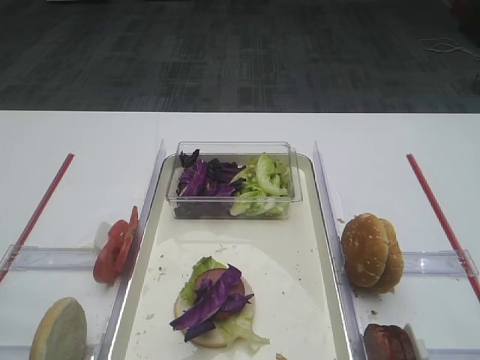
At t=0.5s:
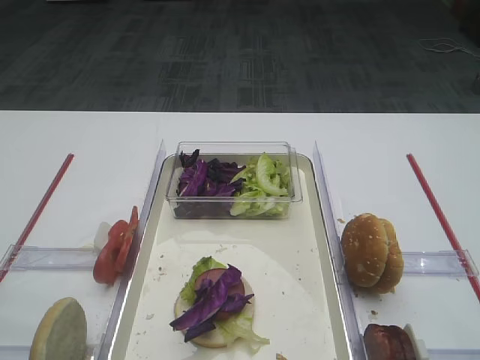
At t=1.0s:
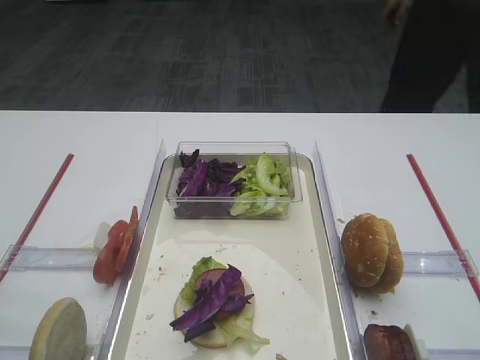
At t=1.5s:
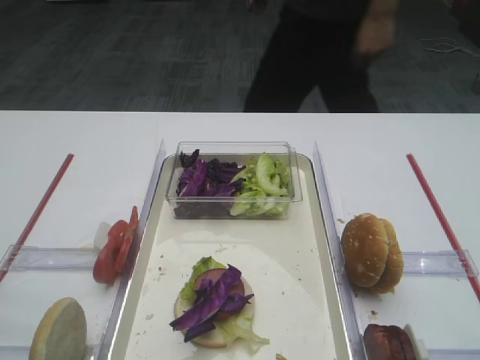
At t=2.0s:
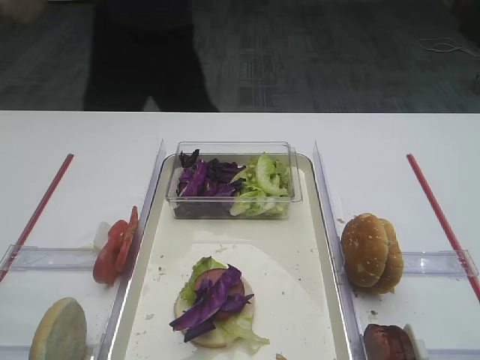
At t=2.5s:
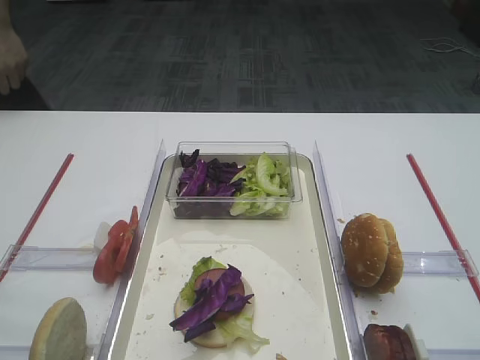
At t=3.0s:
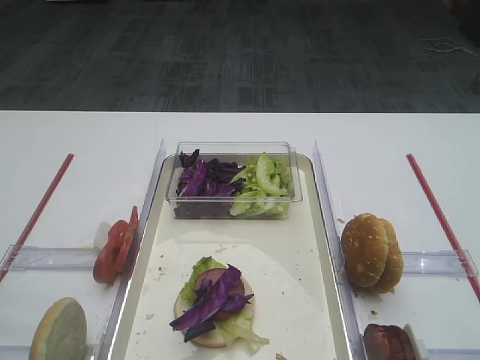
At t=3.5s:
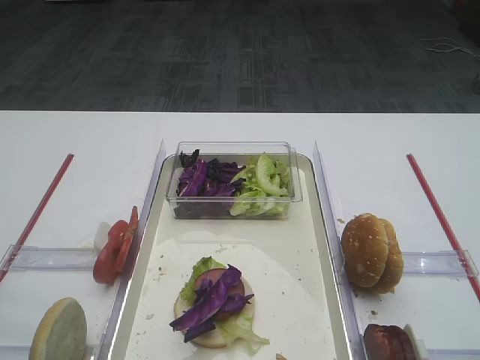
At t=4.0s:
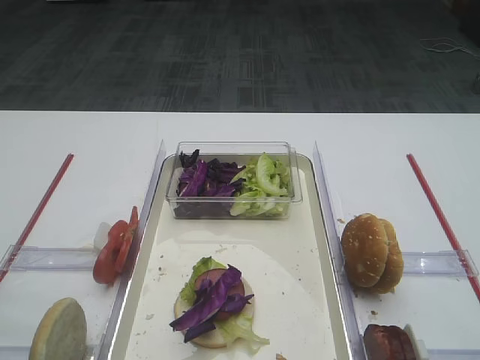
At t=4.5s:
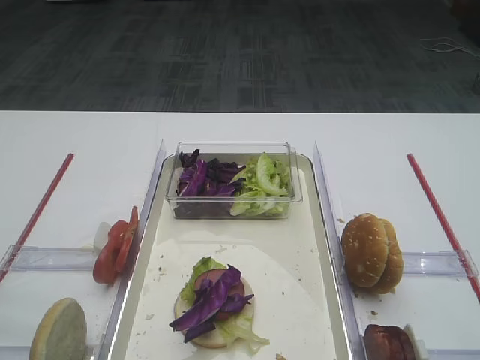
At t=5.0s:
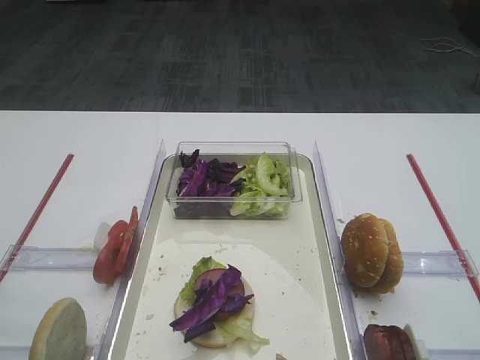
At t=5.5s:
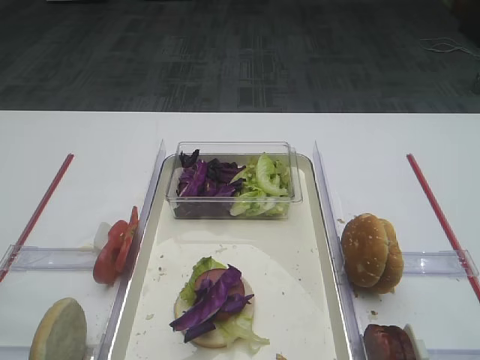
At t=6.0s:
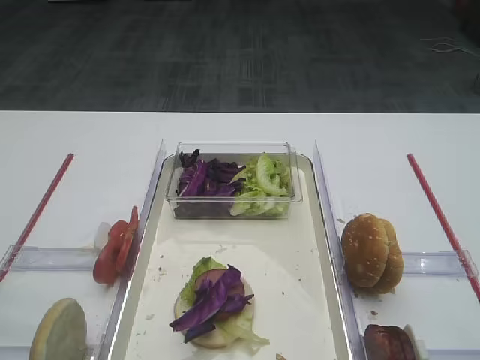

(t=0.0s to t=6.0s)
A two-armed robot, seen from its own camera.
t=0.0s - t=6.0s: Both grippers stay about where they are.

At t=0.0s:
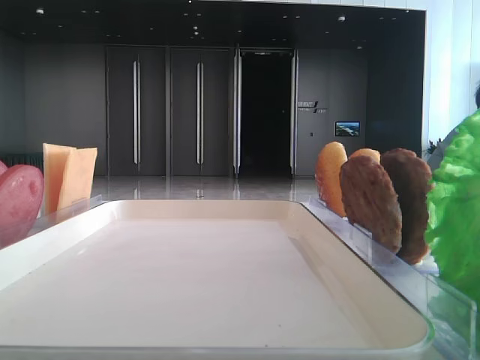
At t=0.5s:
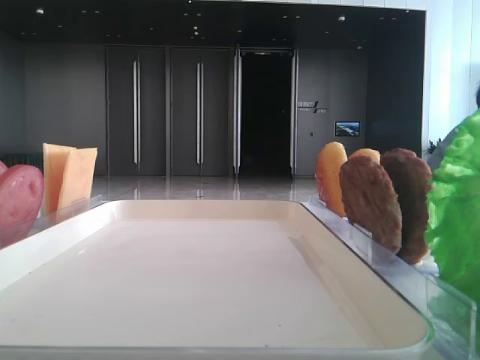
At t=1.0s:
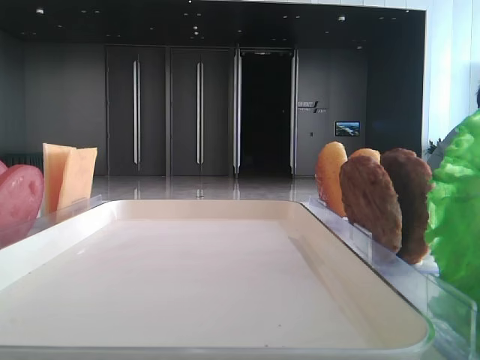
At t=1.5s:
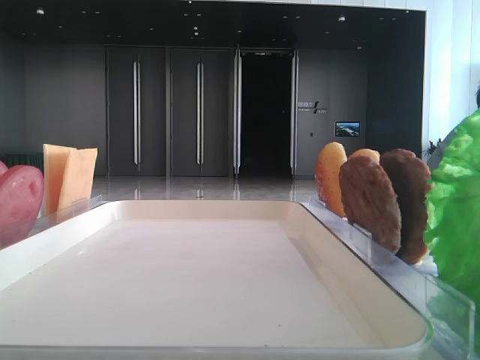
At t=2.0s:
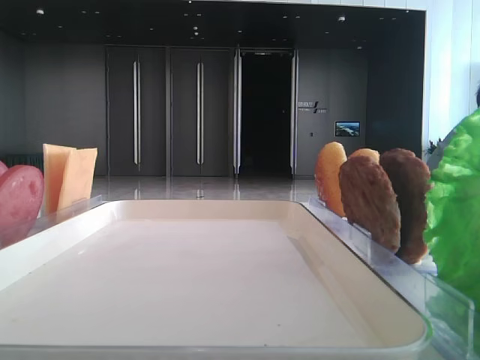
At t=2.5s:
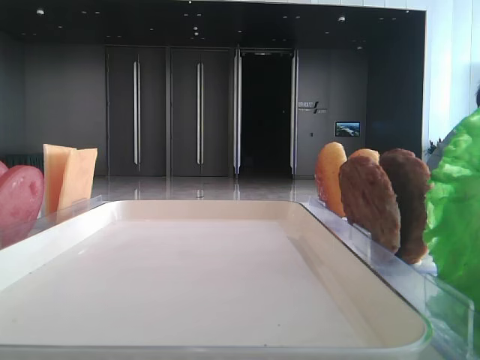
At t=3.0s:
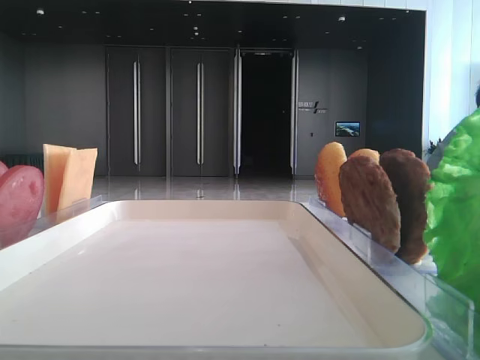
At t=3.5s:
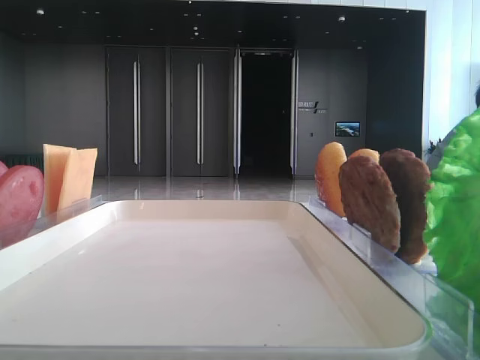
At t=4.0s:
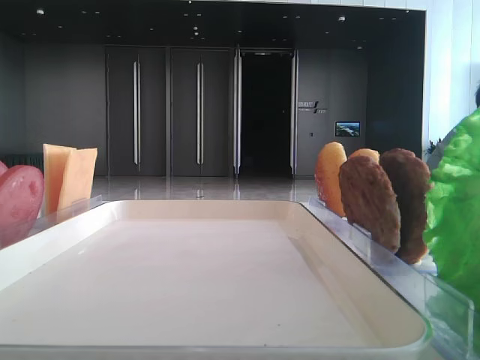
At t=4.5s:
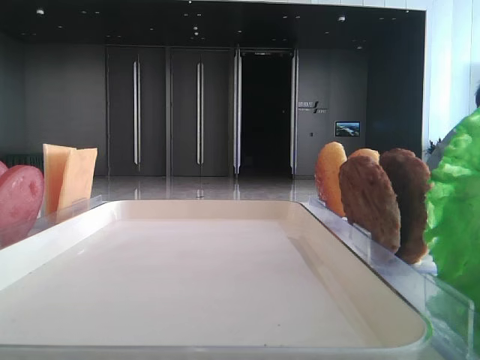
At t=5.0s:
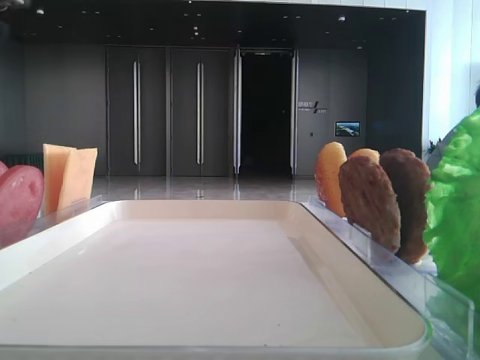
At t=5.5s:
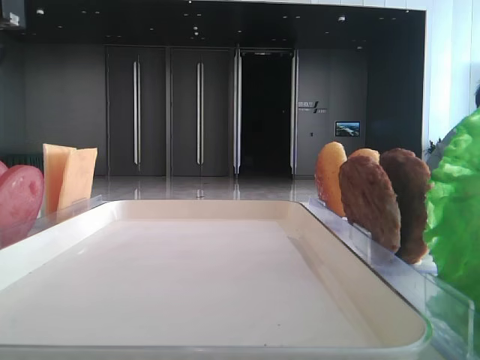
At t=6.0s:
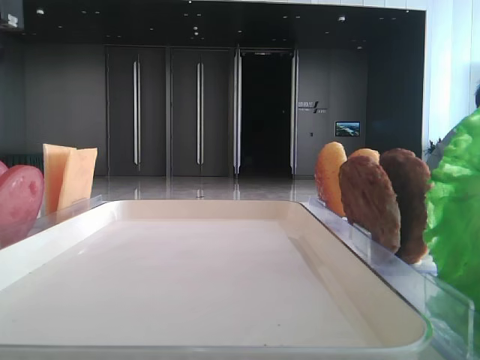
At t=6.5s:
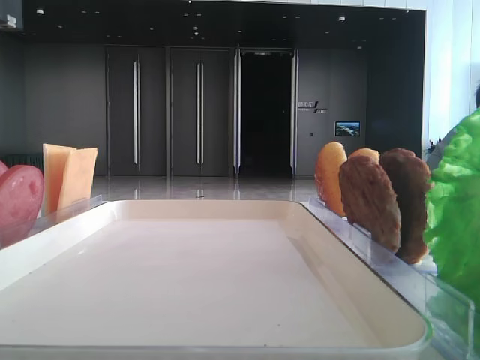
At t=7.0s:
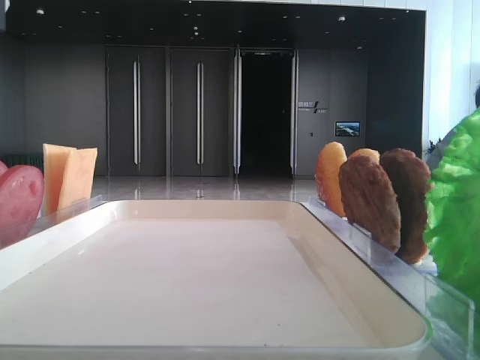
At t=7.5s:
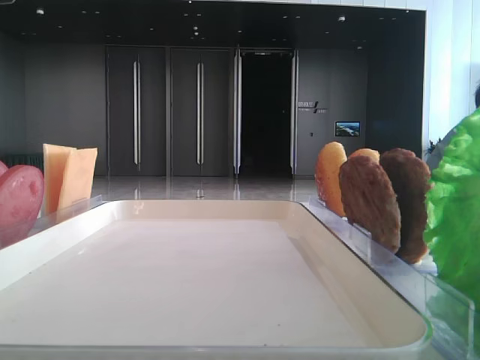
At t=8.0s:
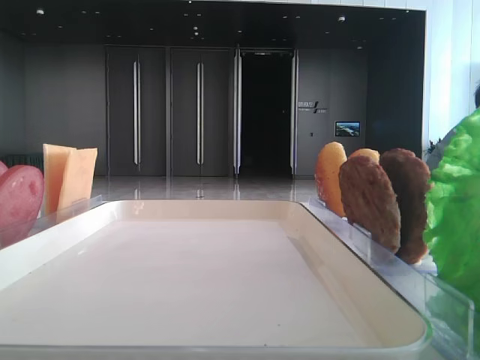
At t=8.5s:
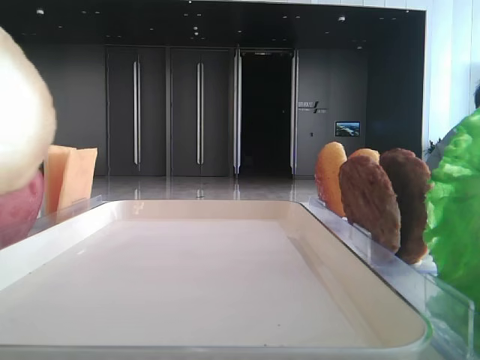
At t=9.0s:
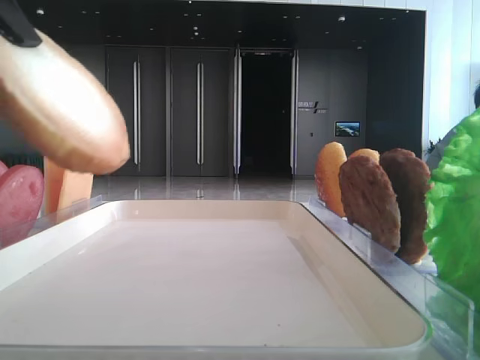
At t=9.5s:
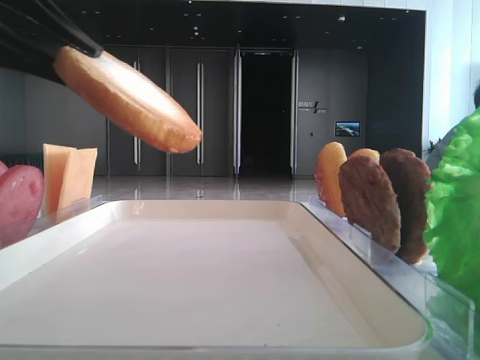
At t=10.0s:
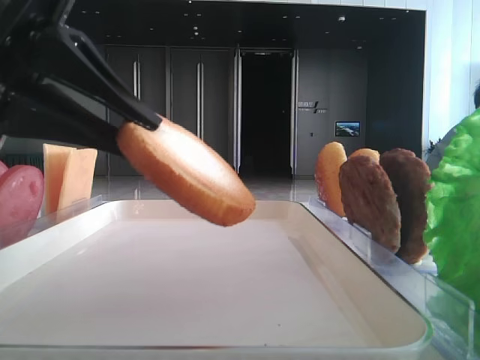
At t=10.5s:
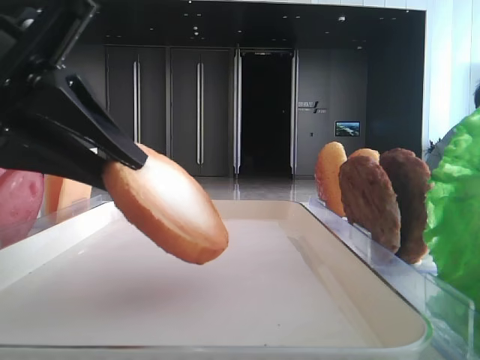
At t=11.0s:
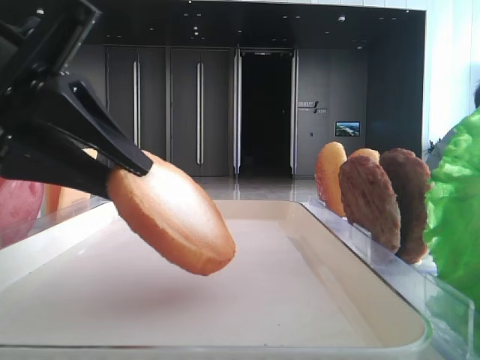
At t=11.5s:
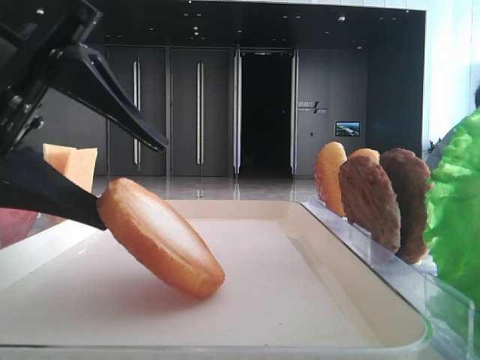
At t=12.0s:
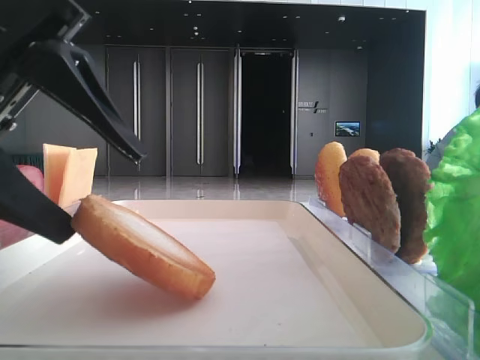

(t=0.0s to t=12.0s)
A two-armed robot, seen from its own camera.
t=8.0s - t=10.0s: The left gripper heads downward, covering about 10 cm.
t=10.0s - t=12.0s: The left gripper opens its fingers.

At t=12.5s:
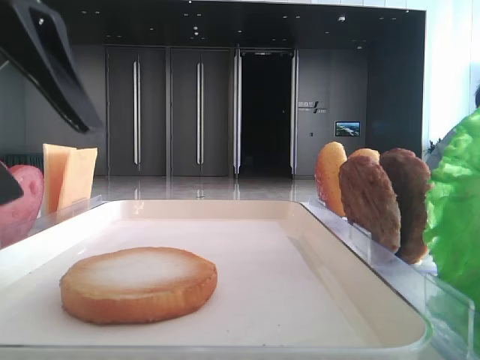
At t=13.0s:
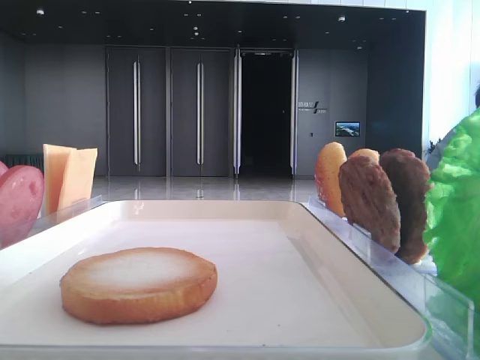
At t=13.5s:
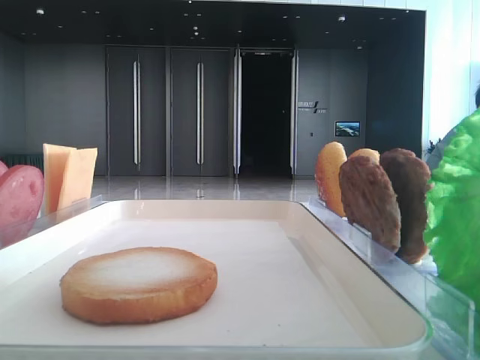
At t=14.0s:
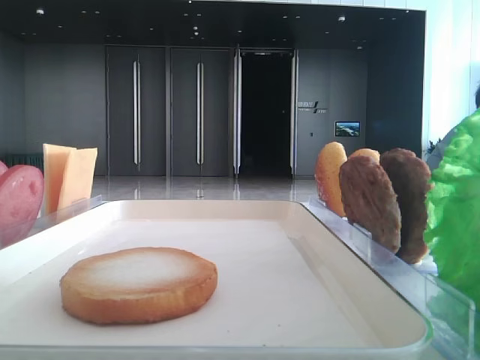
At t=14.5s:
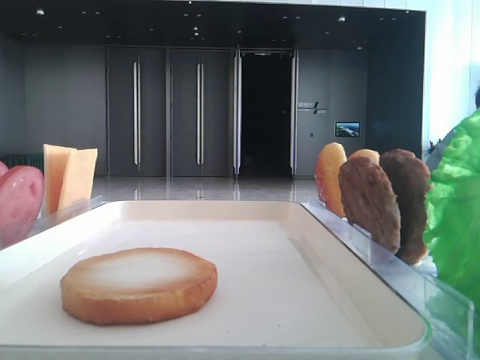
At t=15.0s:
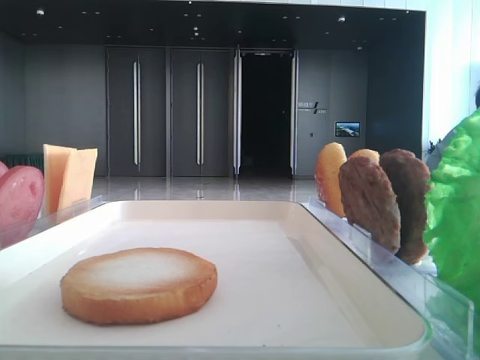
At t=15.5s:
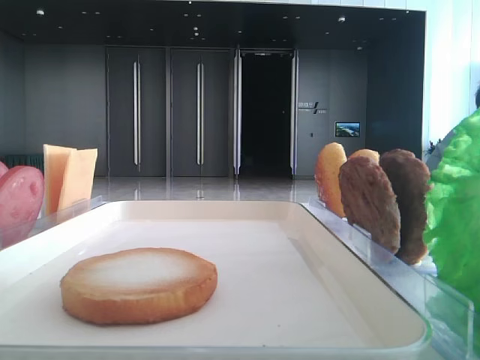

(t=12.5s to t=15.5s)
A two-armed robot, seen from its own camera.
t=12.5s - t=14.0s: The left gripper goes some 20 cm to the left, upward and backward.

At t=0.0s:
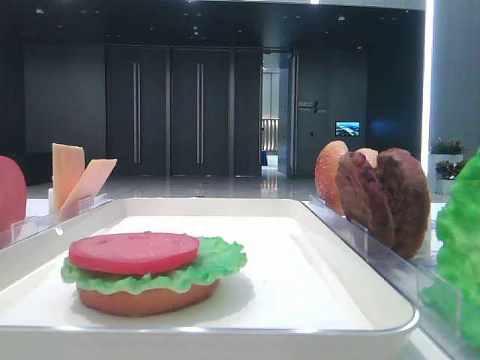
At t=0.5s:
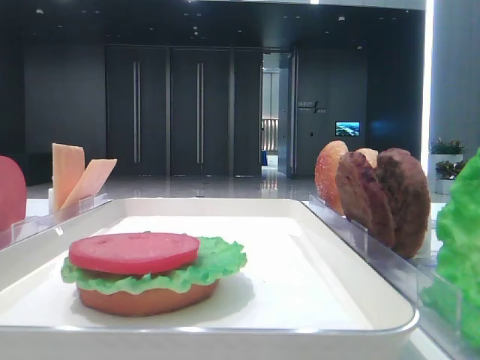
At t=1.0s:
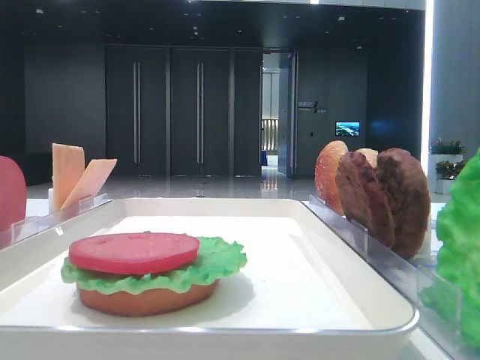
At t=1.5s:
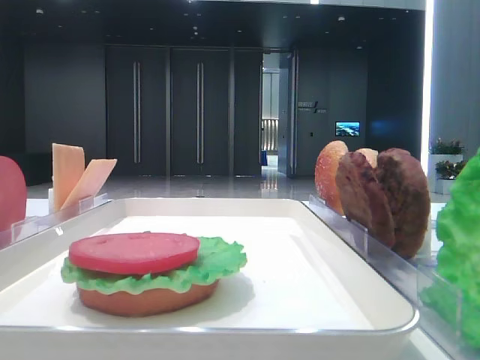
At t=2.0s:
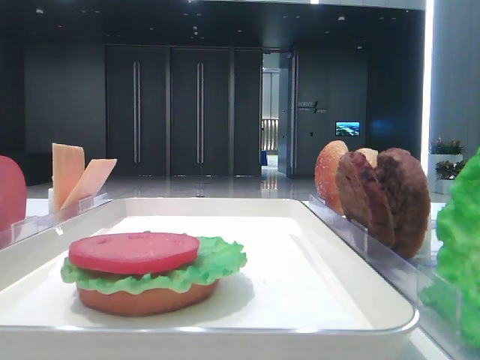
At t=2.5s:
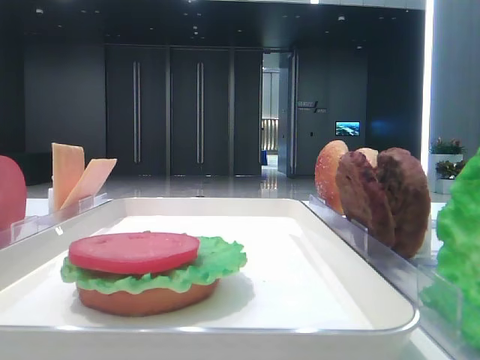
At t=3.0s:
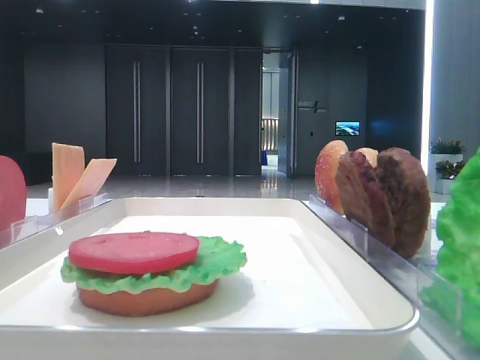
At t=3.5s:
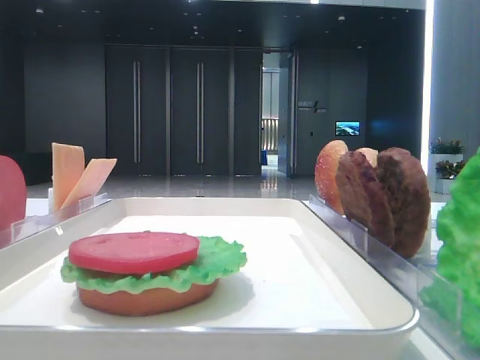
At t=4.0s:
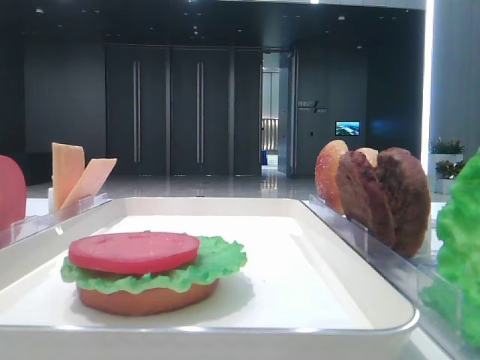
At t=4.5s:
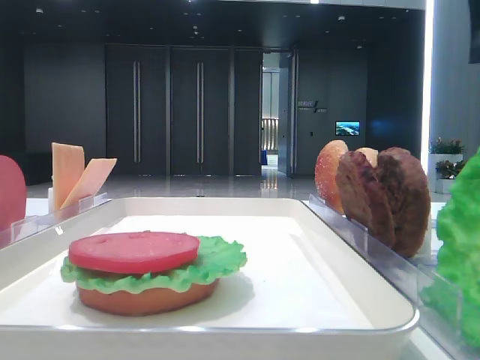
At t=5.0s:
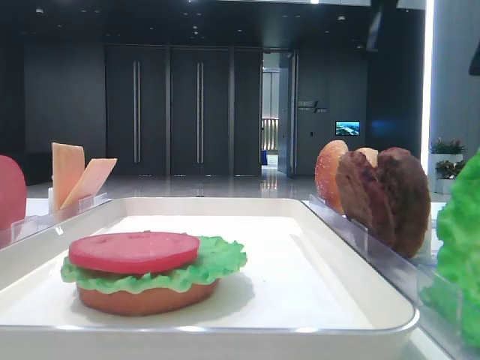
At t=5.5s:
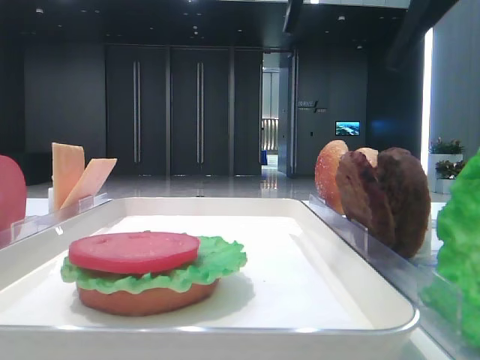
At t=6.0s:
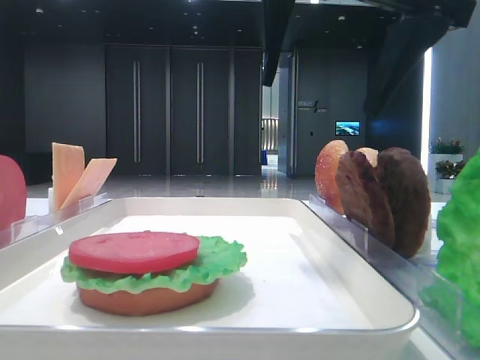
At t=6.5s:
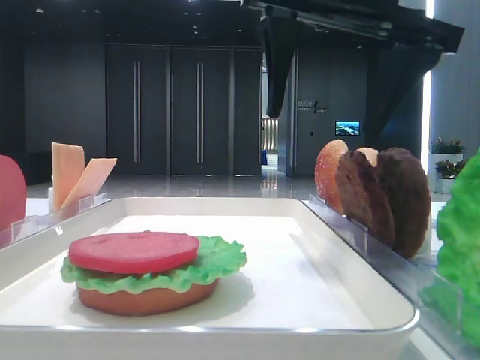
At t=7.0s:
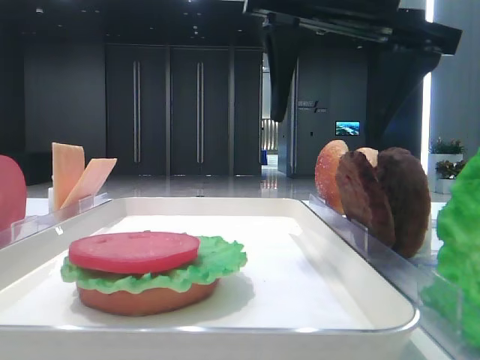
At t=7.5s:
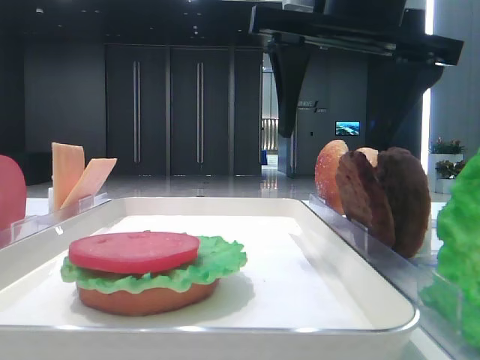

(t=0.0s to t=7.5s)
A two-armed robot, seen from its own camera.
t=4.0s - t=5.5s: The right gripper shifts roughly 20 cm to the left.
t=5.5s - t=7.5s: The right gripper heads downward, covering roughly 5 cm.
